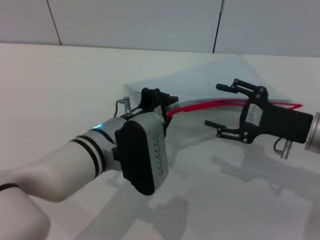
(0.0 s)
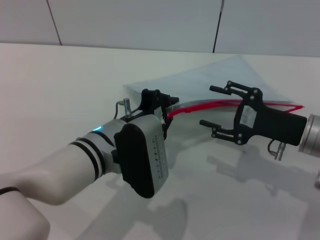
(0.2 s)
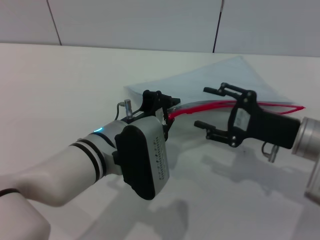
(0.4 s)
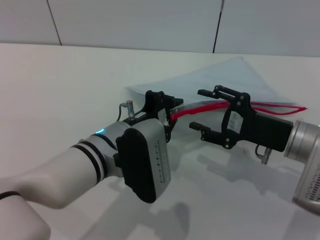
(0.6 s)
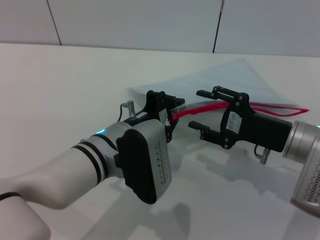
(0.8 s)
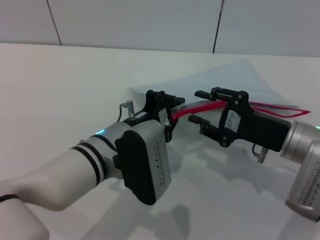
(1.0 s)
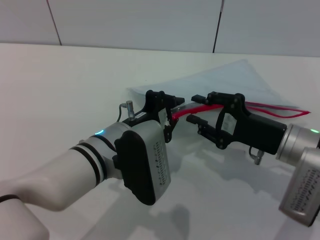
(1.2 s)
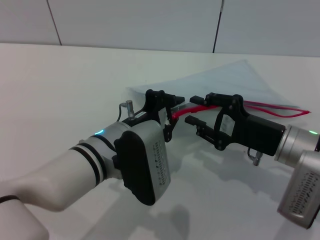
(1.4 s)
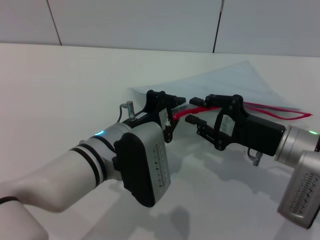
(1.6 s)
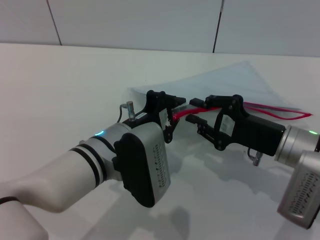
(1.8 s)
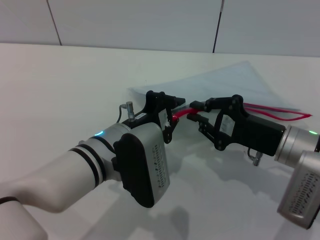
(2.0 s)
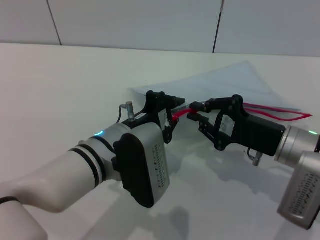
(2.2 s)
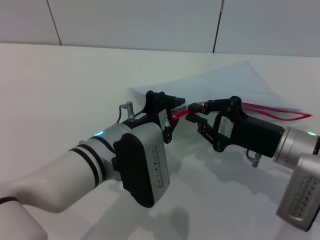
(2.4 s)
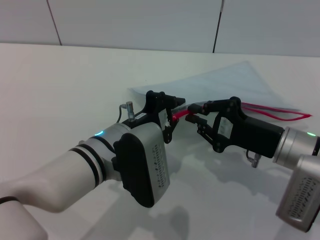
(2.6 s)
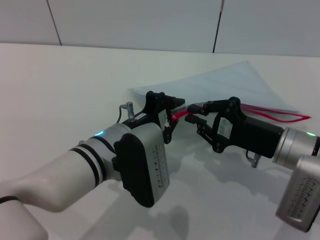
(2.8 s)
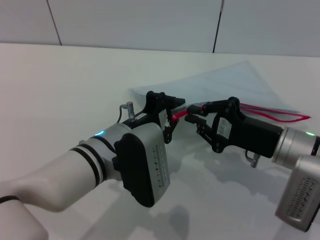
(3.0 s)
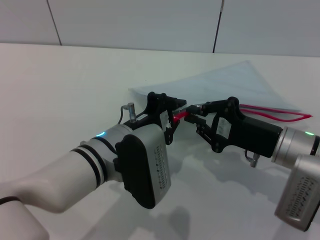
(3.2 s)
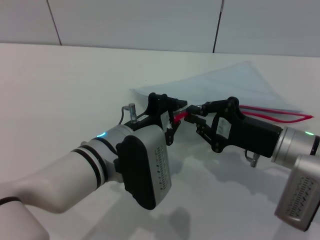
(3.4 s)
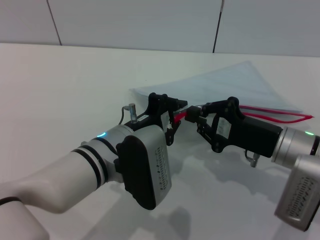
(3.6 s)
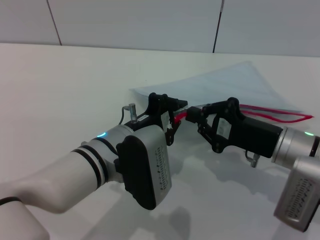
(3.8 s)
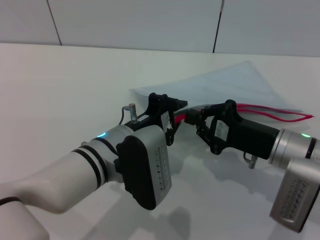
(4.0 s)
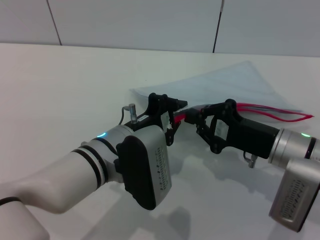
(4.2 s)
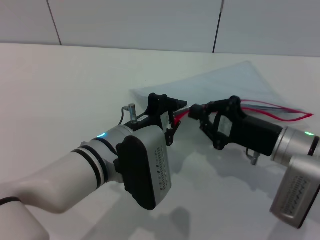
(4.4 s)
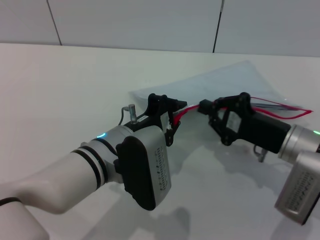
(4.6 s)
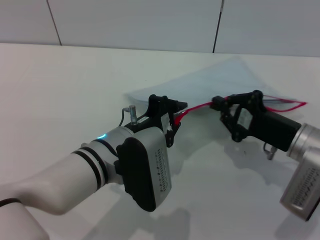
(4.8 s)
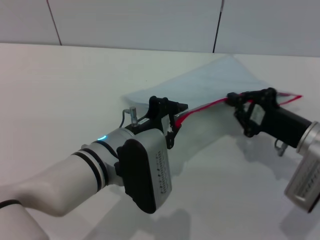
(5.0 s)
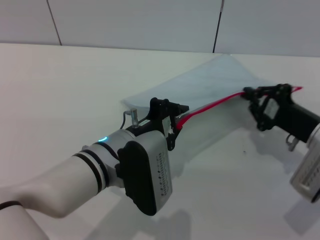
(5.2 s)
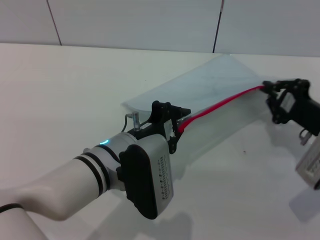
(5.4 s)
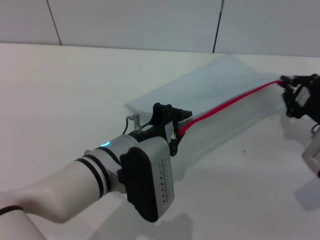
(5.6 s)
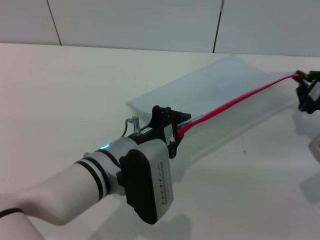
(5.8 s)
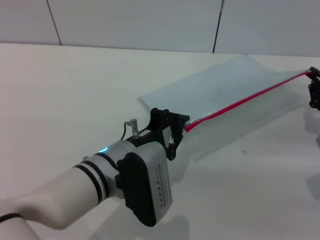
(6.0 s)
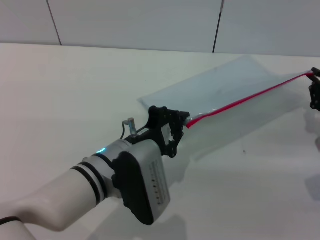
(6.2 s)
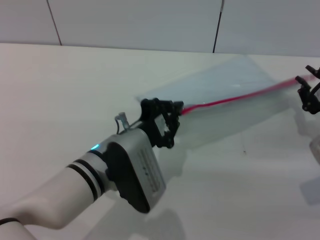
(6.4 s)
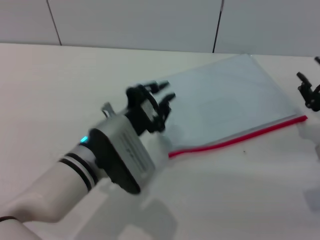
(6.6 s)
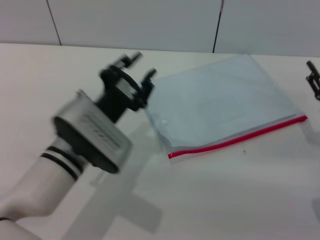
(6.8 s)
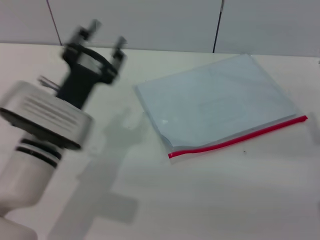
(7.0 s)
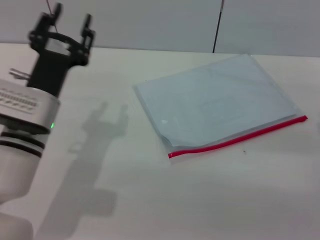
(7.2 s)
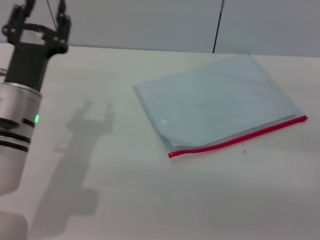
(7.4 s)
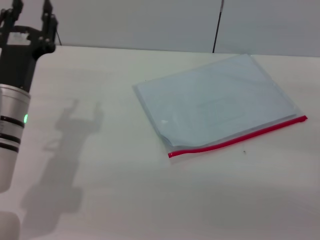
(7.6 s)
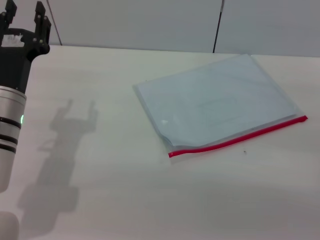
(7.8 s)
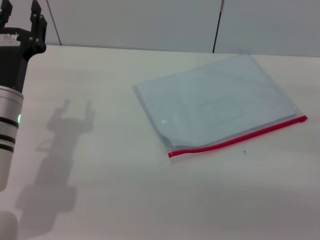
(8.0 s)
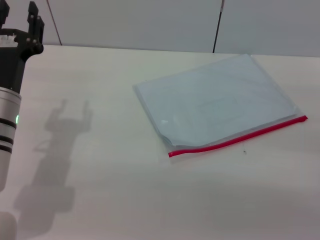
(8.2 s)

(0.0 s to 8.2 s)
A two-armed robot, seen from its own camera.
Step, 0.0 s - 6.2 s: Pulling up the zipper on the transparent plastic bag with the right gripper to close it.
Step, 6.4 s - 7.0 s: Place the transparent plastic bag.
0.0 s - 1.6 s: The right gripper closes its fingers.
1.6 s - 3.2 s: Both grippers stay put.
3.2 s - 5.0 s: The grippers move only a little.
5.0 s - 6.6 s: The right gripper is displaced to the right by some 5 cm.
6.6 s - 8.2 s: The left gripper moves to the left, approximately 10 cm, and opens. Meanwhile the right gripper opens.
